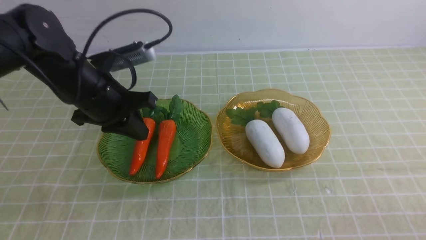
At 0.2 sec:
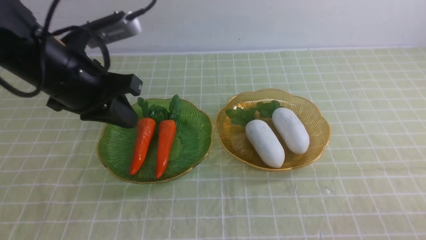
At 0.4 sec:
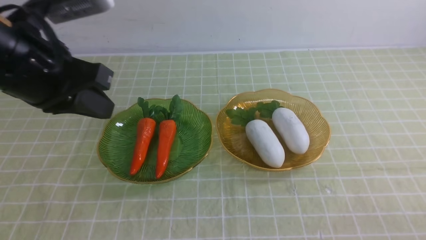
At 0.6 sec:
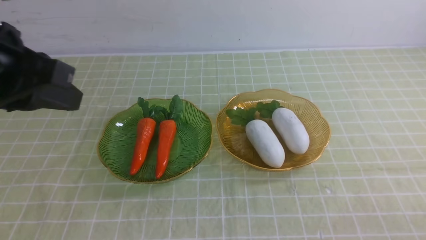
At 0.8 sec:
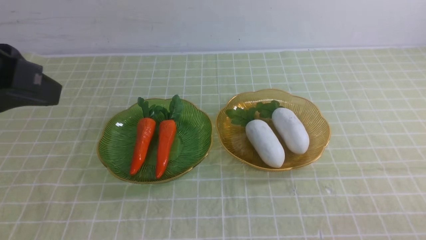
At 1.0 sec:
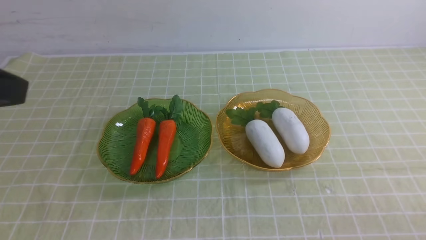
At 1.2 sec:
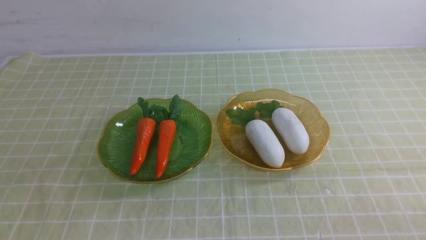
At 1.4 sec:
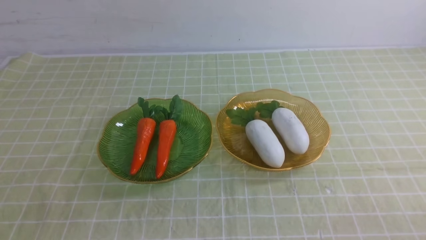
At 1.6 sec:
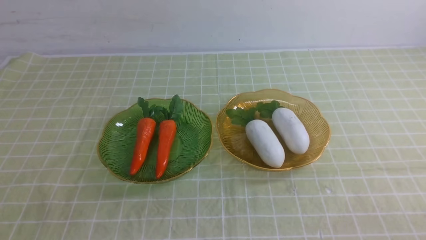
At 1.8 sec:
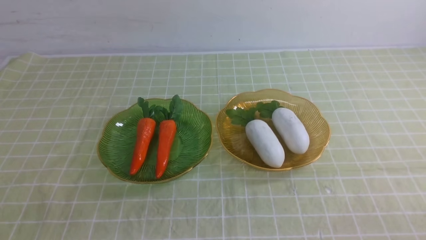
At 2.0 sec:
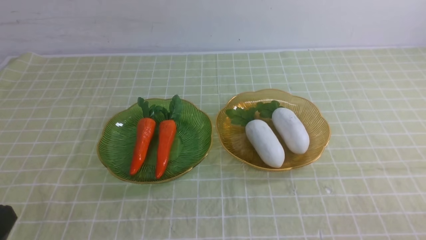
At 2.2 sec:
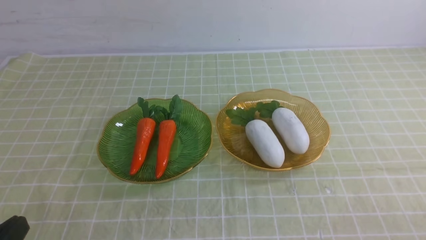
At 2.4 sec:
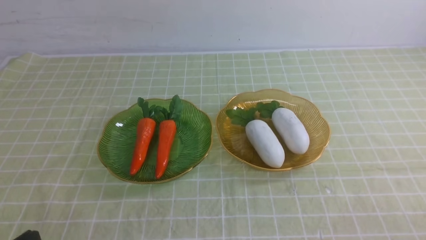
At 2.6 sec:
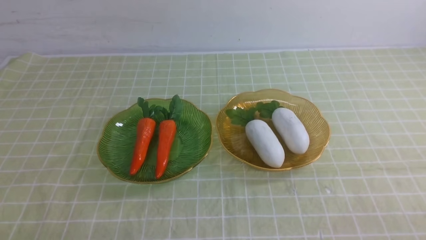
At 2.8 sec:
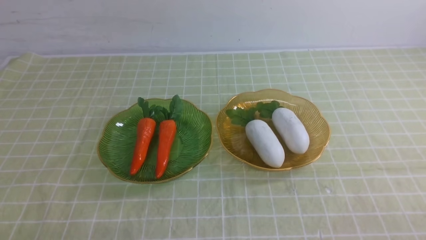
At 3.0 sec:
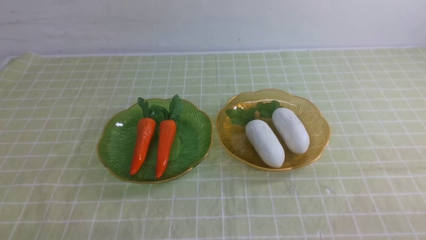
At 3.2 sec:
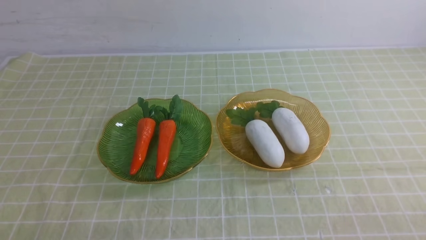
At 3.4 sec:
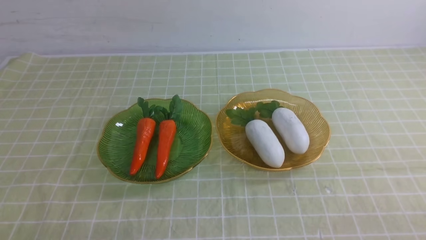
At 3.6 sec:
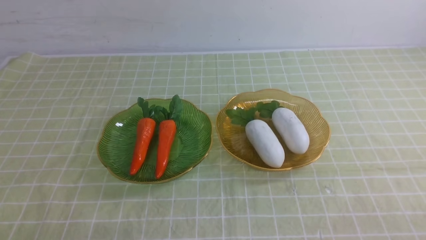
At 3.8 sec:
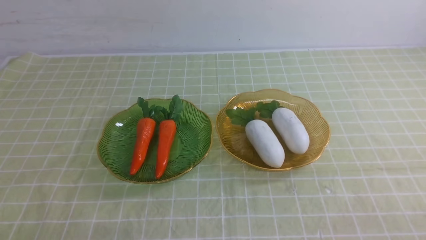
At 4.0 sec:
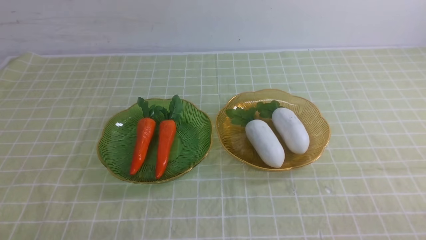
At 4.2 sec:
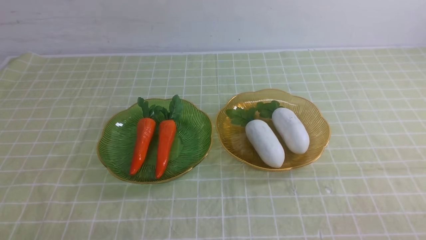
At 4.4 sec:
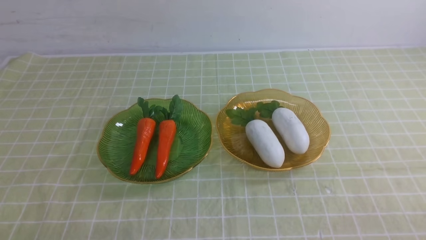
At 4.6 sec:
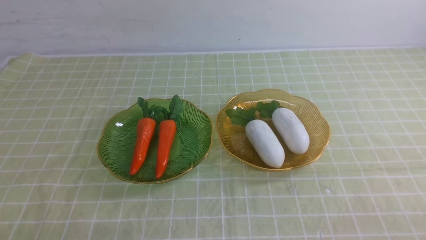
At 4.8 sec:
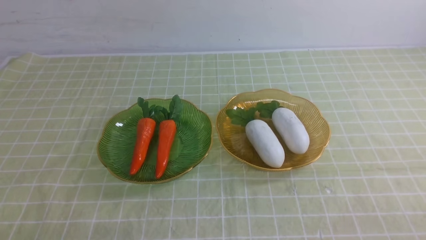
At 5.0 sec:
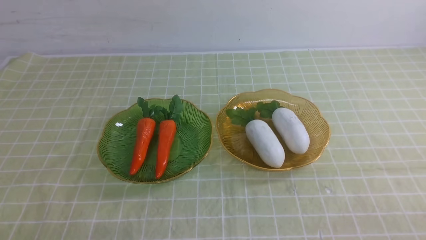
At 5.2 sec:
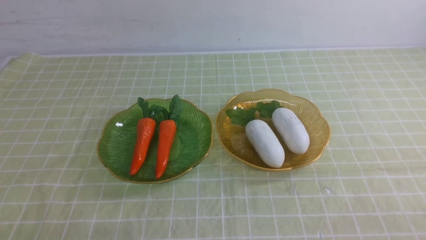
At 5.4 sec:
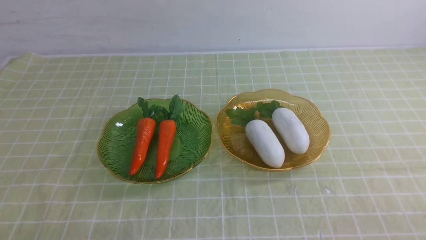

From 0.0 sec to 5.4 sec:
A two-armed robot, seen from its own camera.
From 0.0 sec to 1.4 sec: The left gripper goes about 30 cm backward.
From 2.8 sec to 5.4 sec: Both grippers stay about where they are.
